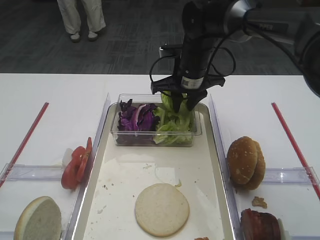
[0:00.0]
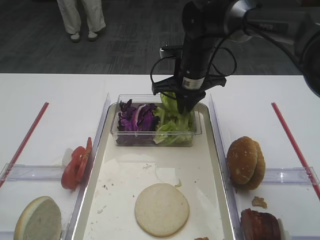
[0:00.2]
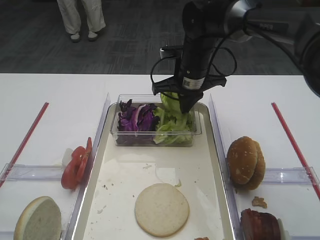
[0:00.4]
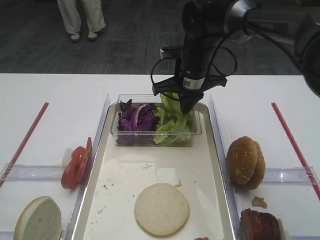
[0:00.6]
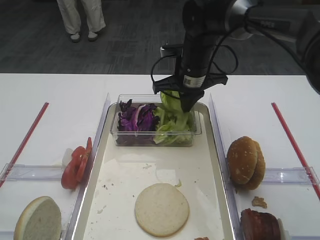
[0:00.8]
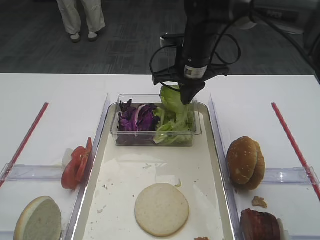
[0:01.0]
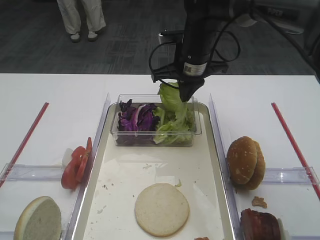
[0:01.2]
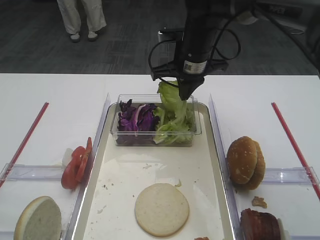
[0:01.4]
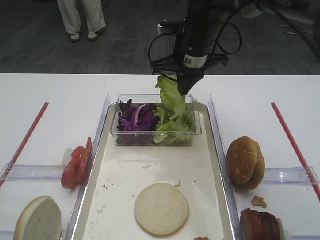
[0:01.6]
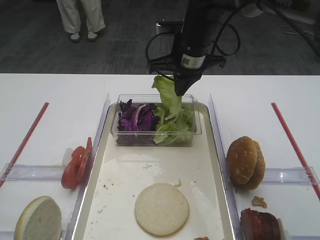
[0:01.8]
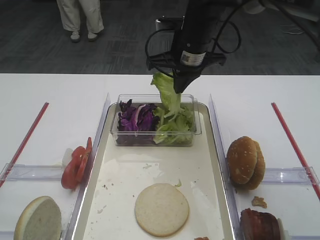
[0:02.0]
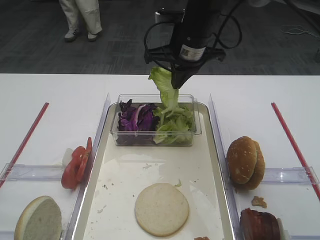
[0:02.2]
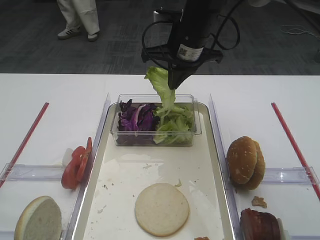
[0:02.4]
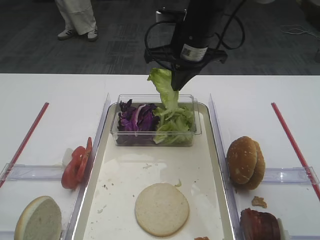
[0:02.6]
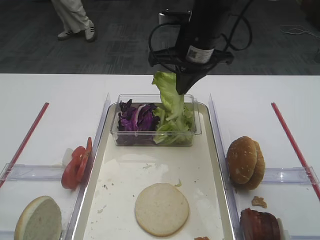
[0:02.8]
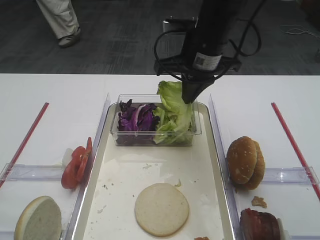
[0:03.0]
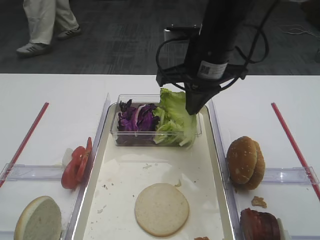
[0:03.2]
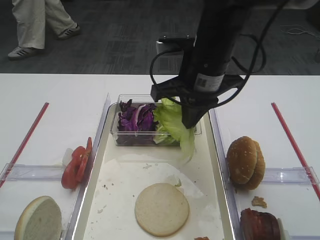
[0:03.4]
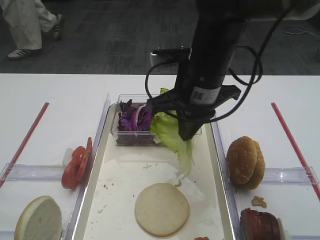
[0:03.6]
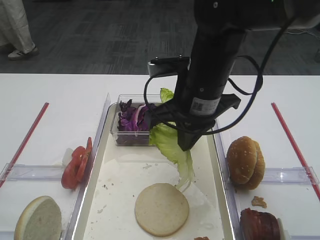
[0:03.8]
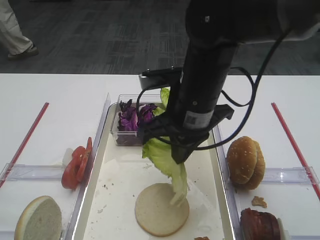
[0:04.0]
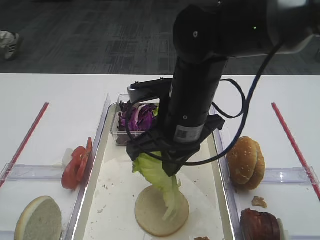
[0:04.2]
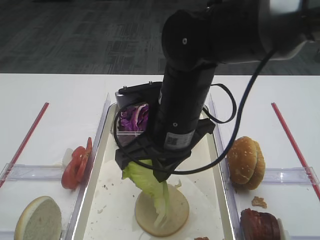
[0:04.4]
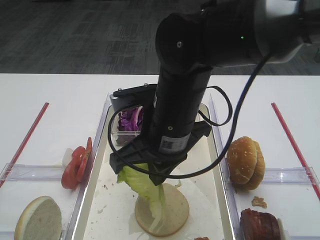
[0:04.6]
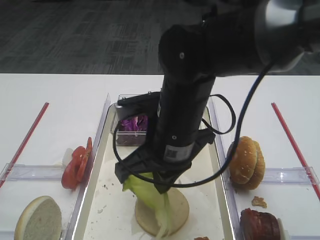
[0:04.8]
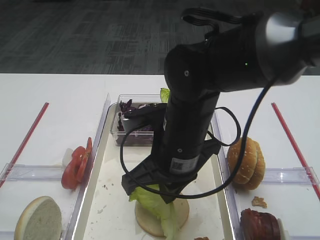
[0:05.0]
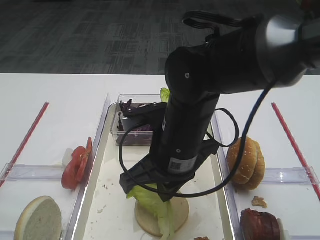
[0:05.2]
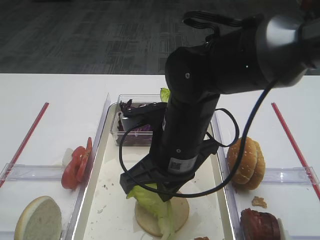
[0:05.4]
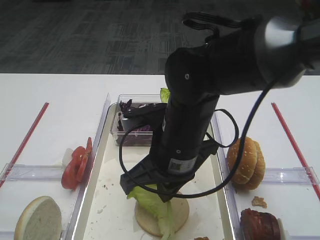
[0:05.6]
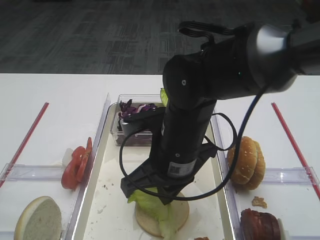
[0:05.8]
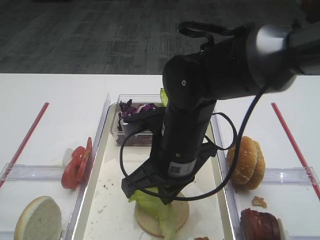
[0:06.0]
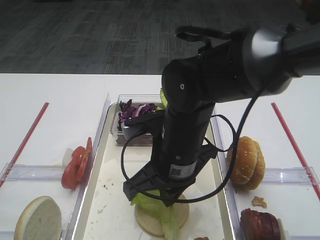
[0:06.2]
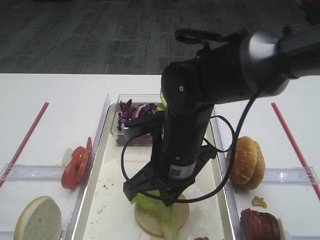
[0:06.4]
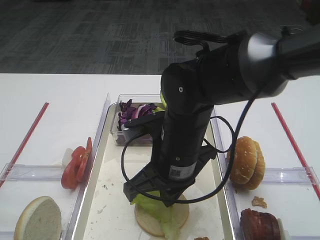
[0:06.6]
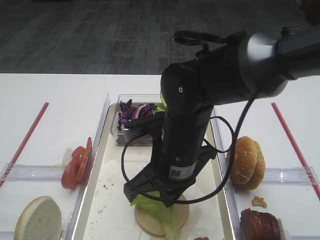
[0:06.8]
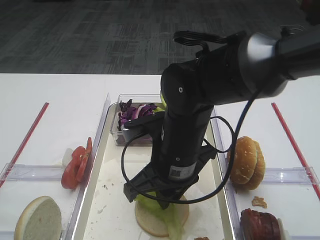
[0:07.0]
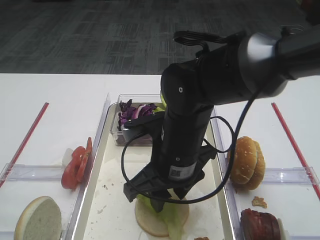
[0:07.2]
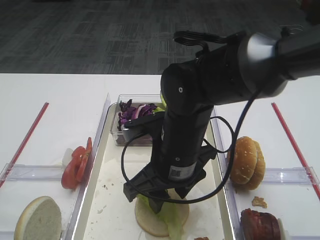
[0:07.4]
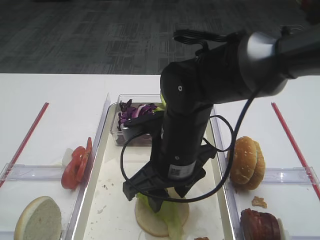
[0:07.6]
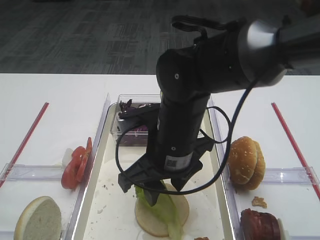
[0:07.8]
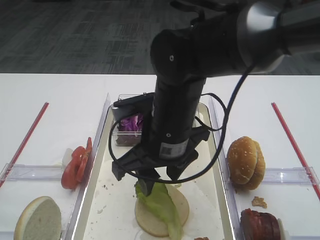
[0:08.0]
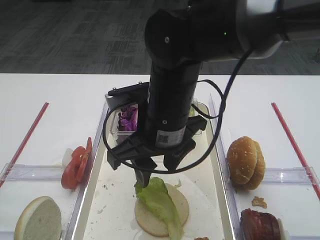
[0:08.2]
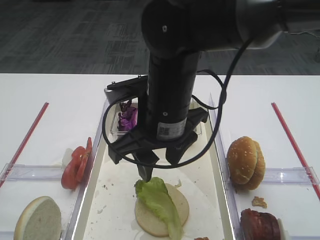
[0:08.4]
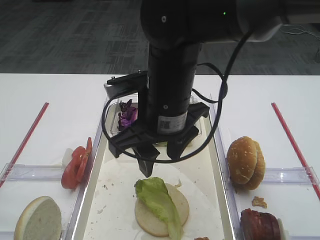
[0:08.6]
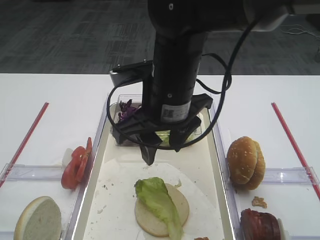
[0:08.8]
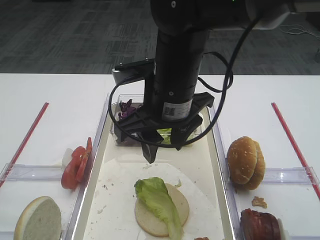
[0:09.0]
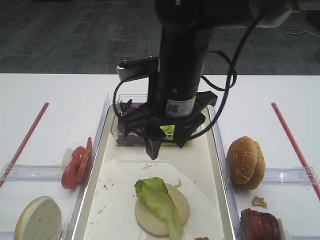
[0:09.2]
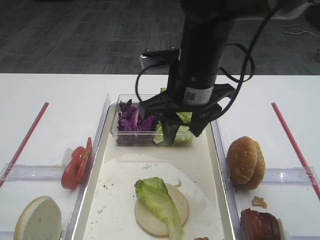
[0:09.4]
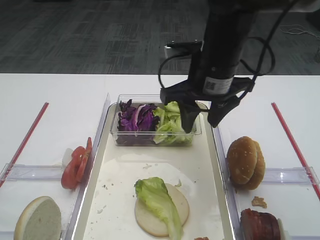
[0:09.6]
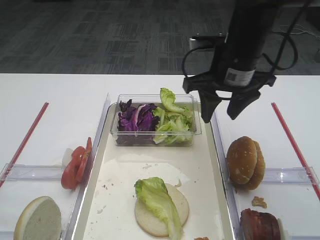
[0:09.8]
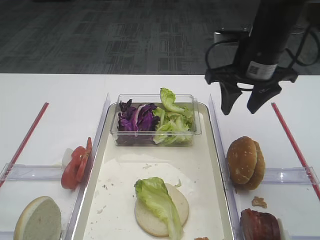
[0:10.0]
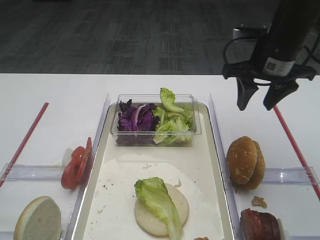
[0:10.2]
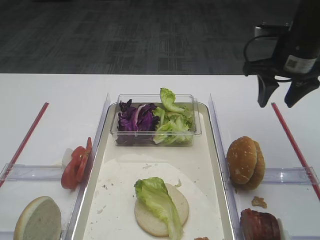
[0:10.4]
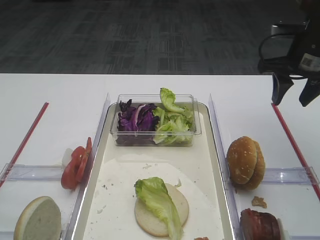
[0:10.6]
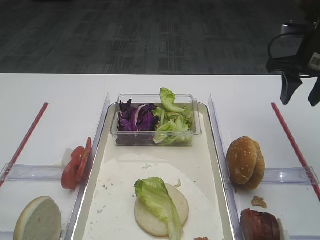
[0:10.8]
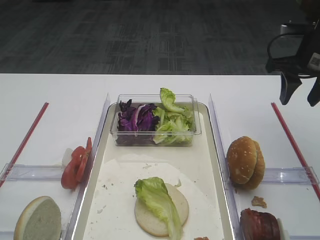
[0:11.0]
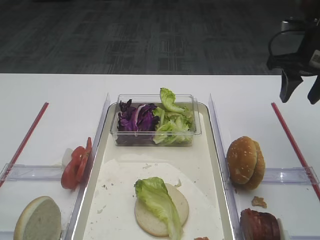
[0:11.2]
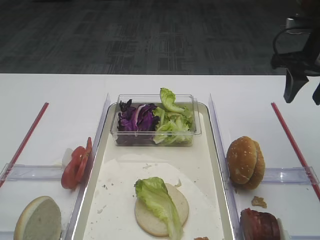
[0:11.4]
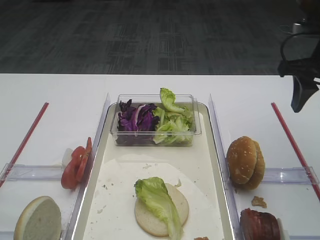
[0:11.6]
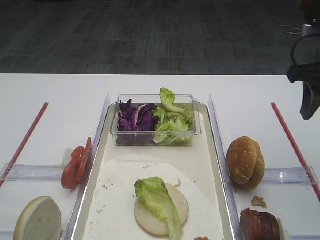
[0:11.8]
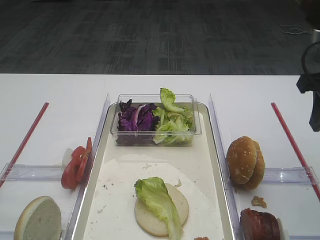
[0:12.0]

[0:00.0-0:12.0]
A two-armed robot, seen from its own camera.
Step, 0:01.8 to 0:08.0: Place the lettuce leaf on the bread slice with the right gripper.
0:00.0 to 0:01.6: The right gripper moves upward, roughly 5 cm, and closes its fingers.
0:01.6 to 0:03.0: The right gripper goes about 5 cm backward.
0:03.0 to 0:04.4: The right gripper is displaced backward and to the left by approximately 15 cm.
0:04.4 to 0:06.0: There are only small adjustments of the grippers.
0:06.0 to 0:07.6: The right gripper opens its fingers.
0:07.6 to 0:09.0: The right gripper travels upward by roughly 10 cm.
0:09.0 to 0:10.4: The right gripper is displaced to the right and forward by about 25 cm.
0:10.4 to 0:12.0: The right gripper heads backward, covering approximately 10 cm.

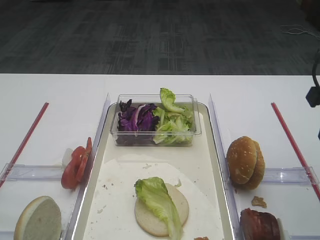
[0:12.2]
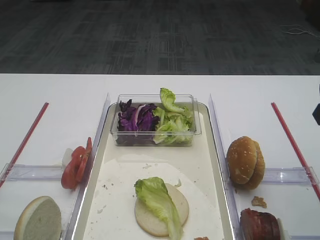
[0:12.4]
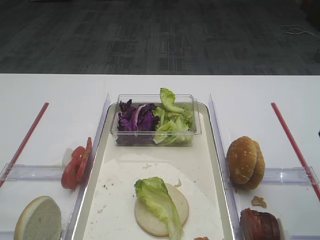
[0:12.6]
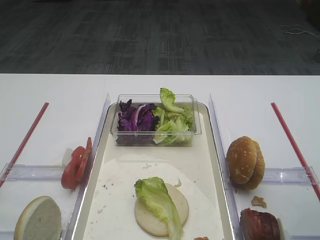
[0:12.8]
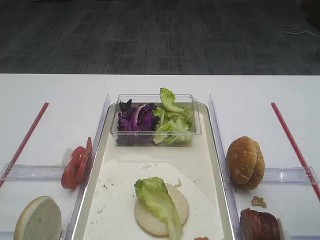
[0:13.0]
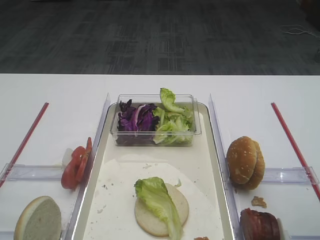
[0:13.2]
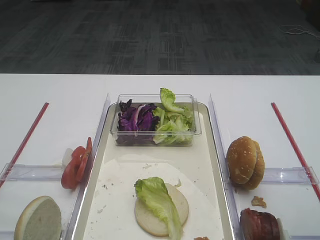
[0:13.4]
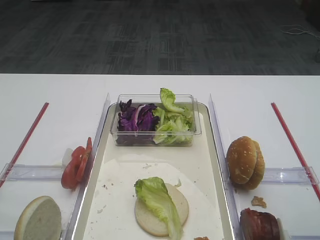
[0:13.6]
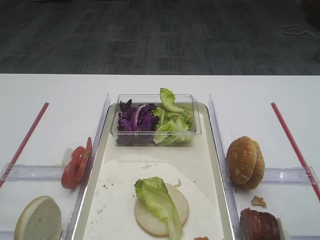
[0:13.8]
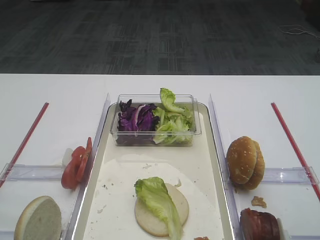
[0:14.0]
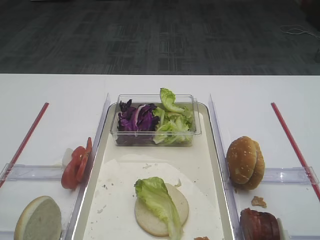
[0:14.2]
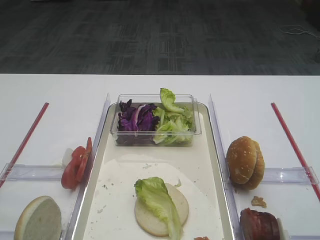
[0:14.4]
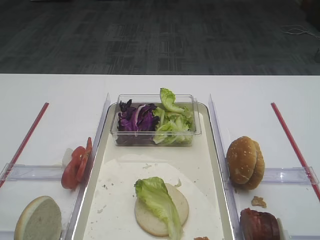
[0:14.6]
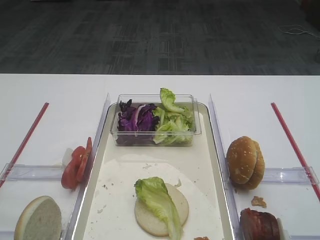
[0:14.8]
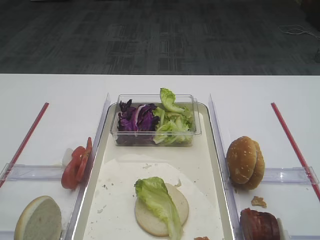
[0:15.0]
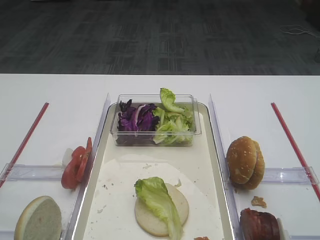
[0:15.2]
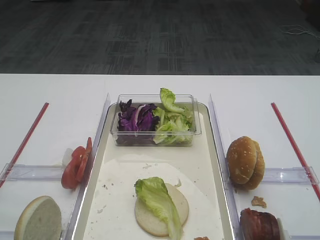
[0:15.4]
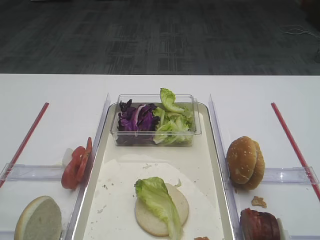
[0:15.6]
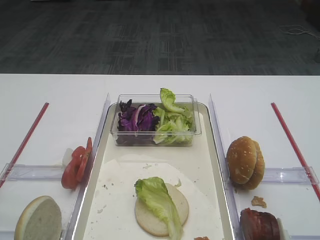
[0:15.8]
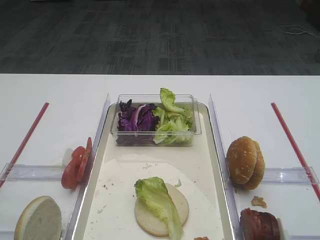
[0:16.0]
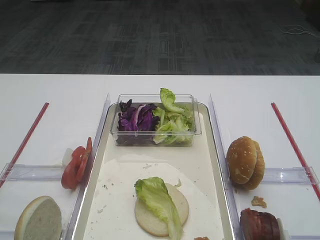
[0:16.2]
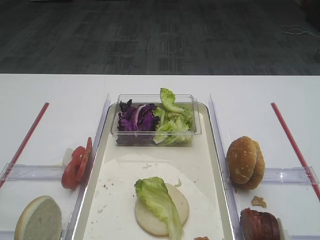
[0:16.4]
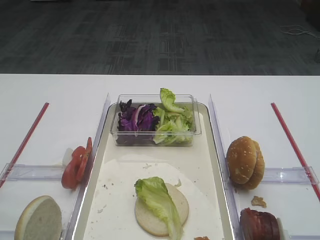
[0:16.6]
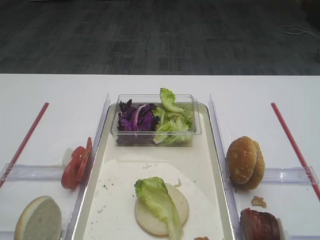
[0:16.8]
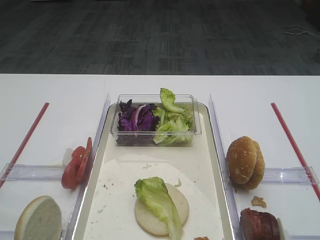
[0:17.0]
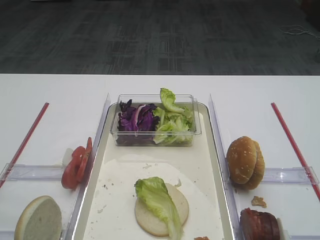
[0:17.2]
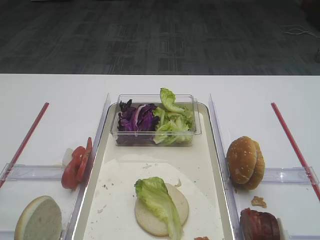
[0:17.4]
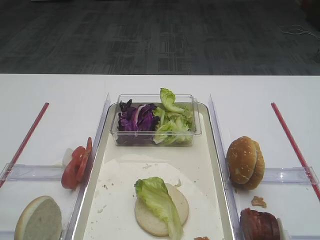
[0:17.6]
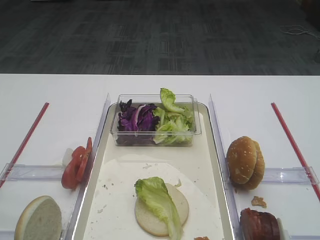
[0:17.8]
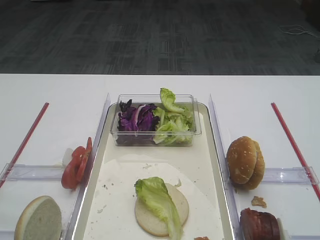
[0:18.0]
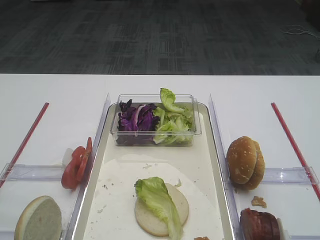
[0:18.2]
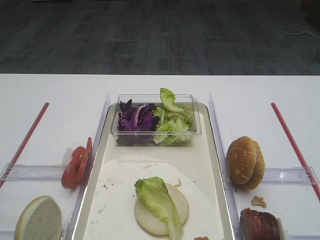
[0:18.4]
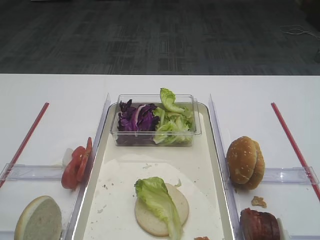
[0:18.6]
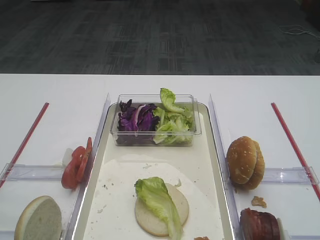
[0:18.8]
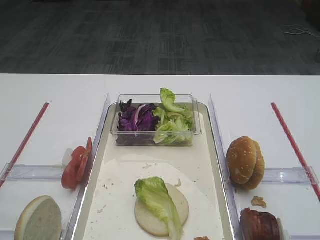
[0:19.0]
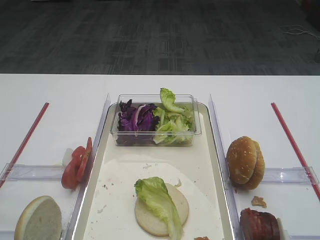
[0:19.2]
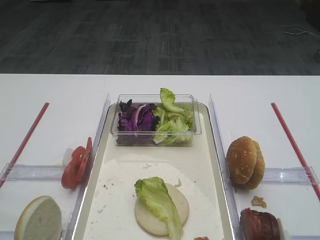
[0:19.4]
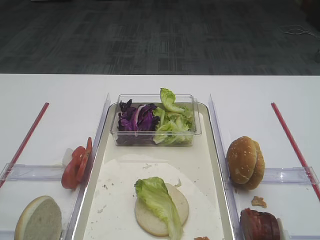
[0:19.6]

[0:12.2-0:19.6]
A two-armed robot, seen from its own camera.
0:16.6 to 0:19.6: Both grippers stay put.

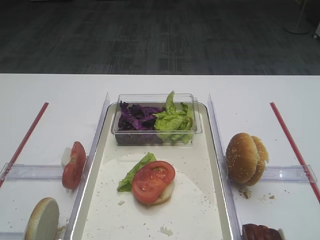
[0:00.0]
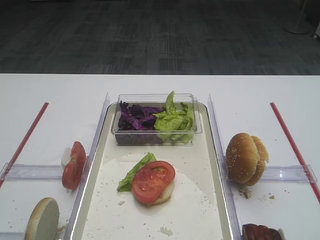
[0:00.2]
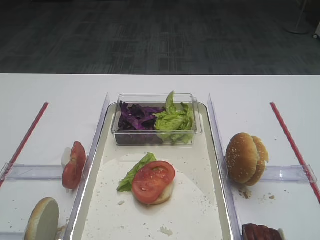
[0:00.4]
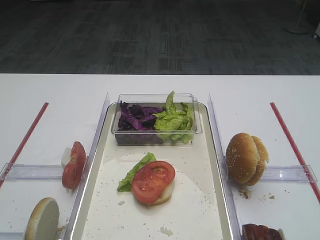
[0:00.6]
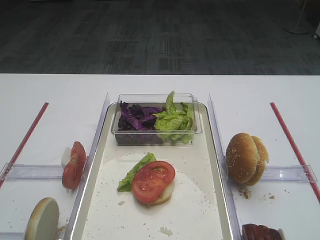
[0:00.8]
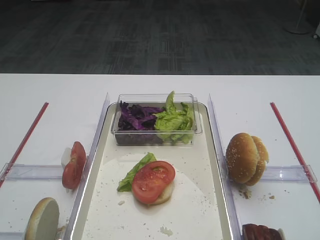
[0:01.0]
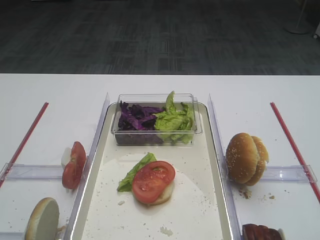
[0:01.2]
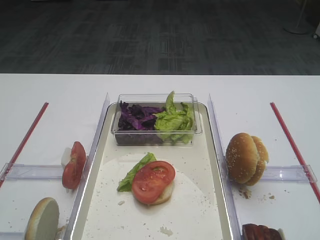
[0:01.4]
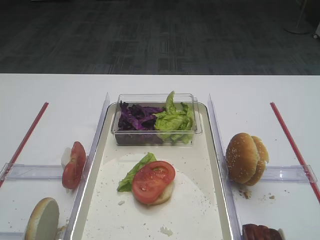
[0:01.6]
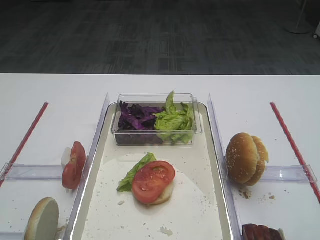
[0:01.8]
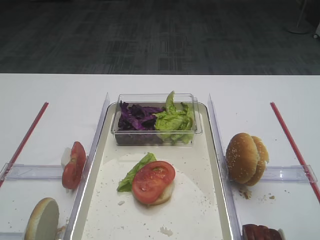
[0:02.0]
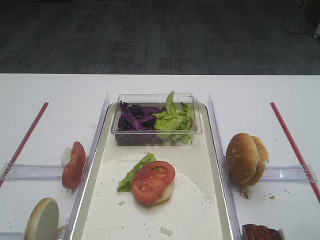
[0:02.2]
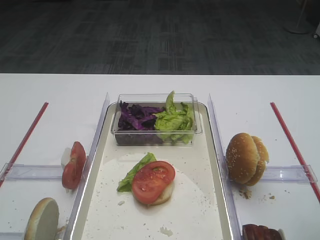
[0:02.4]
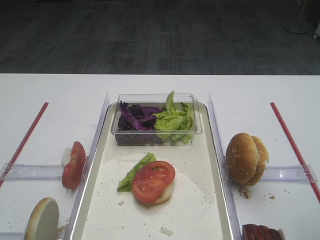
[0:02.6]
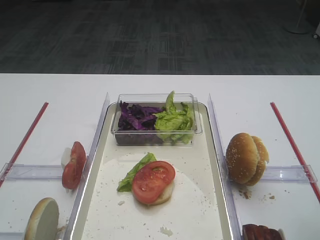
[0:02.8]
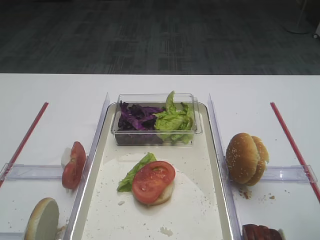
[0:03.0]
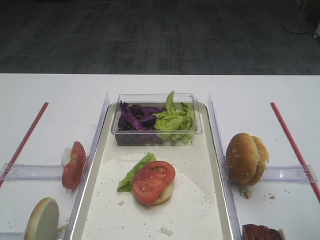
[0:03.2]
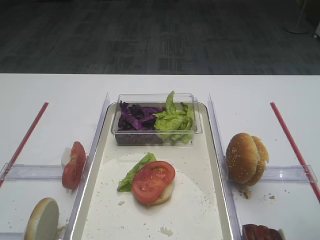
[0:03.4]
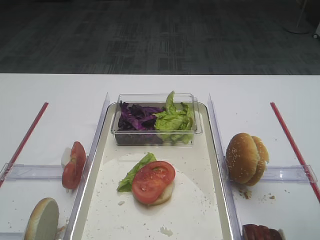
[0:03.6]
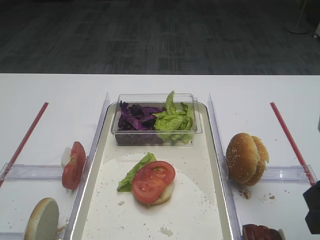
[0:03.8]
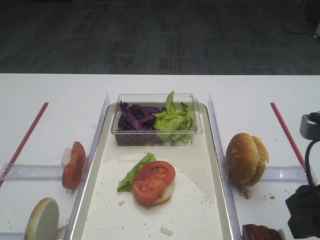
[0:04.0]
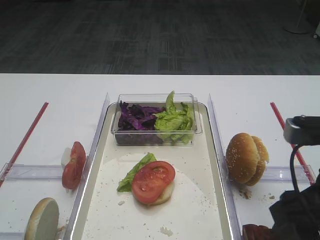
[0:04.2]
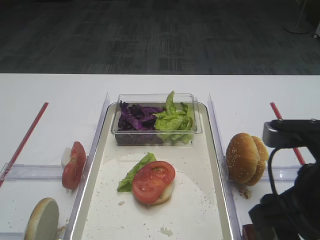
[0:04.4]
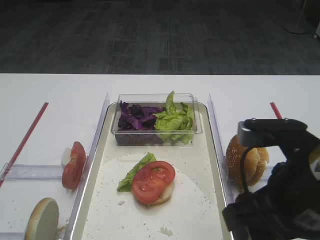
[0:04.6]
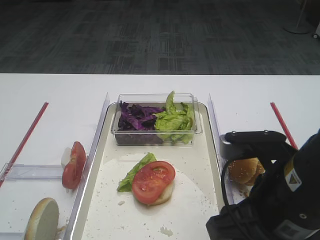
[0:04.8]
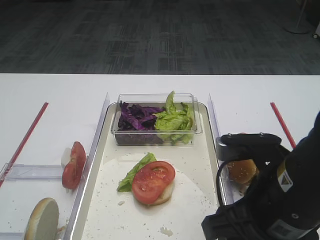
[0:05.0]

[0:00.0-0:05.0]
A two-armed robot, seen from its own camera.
0:03.4 to 0:05.0: The right gripper moves to the left, about 15 cm.
